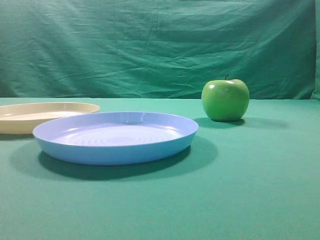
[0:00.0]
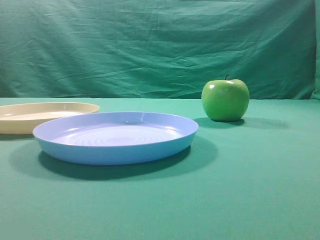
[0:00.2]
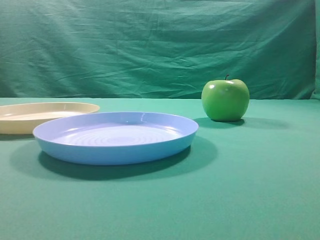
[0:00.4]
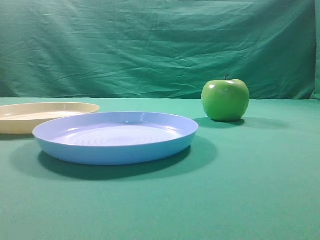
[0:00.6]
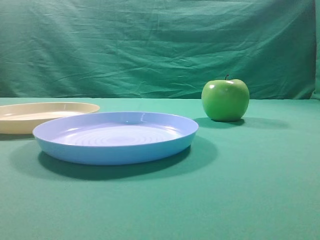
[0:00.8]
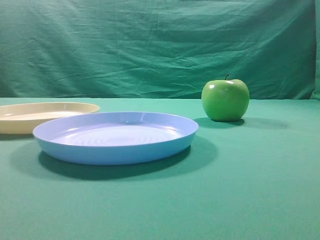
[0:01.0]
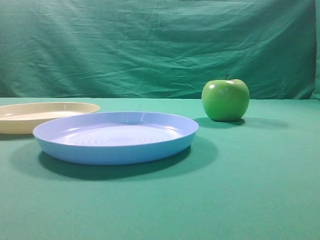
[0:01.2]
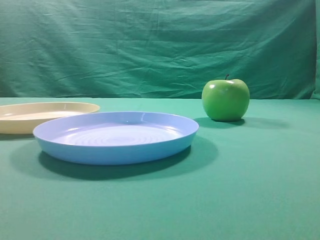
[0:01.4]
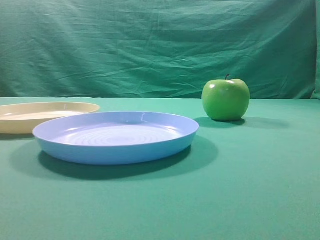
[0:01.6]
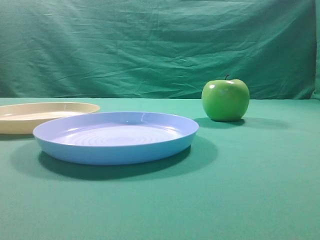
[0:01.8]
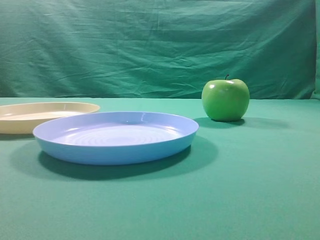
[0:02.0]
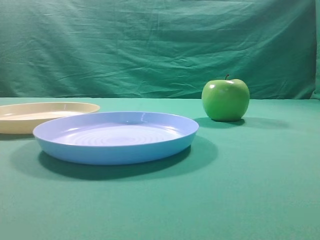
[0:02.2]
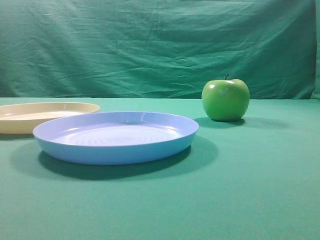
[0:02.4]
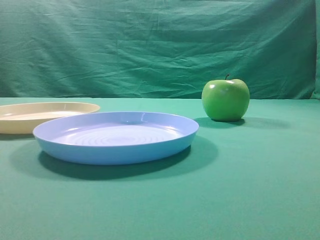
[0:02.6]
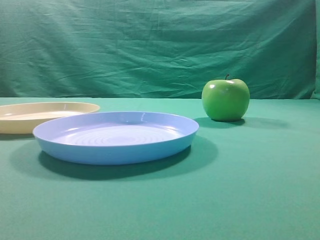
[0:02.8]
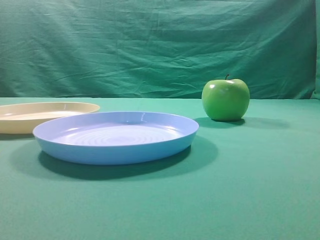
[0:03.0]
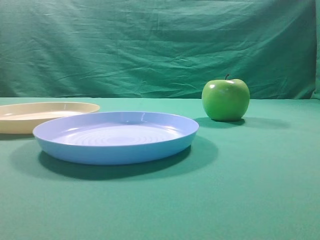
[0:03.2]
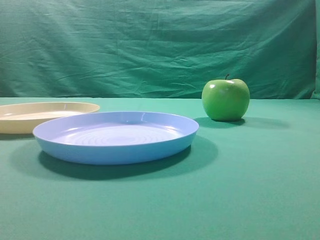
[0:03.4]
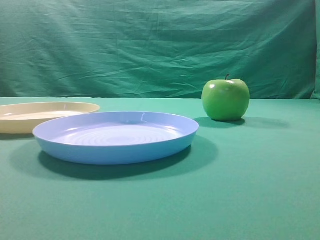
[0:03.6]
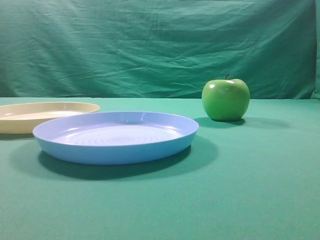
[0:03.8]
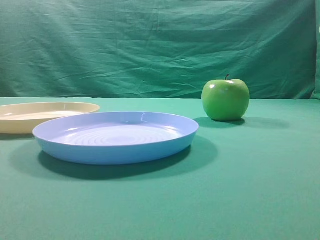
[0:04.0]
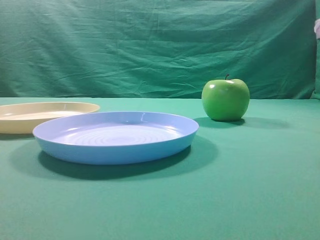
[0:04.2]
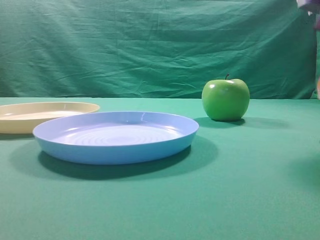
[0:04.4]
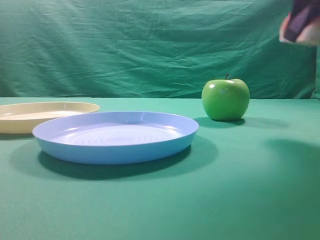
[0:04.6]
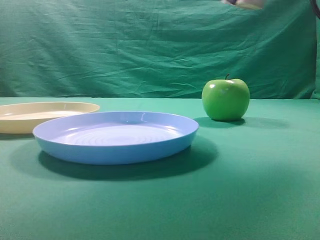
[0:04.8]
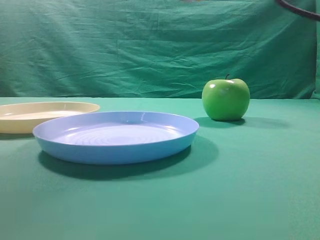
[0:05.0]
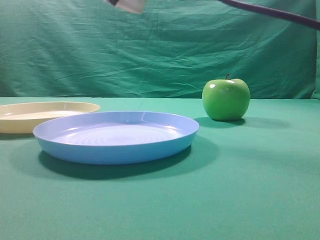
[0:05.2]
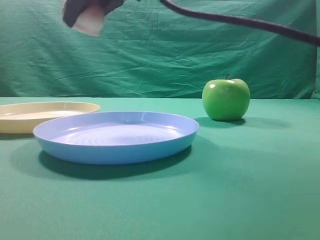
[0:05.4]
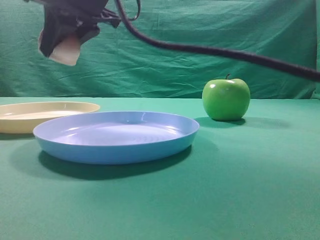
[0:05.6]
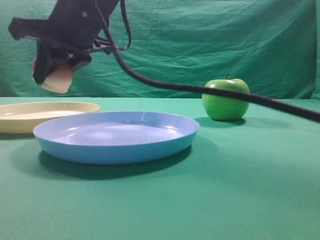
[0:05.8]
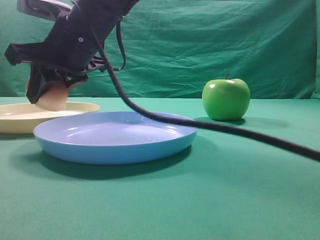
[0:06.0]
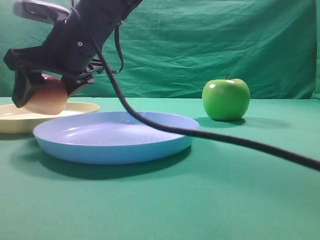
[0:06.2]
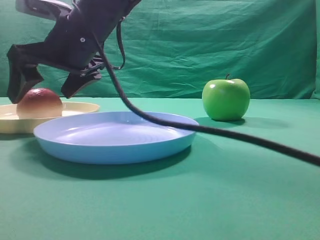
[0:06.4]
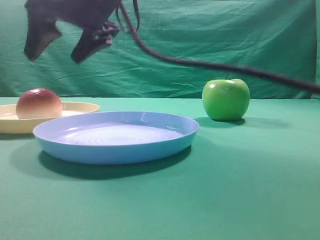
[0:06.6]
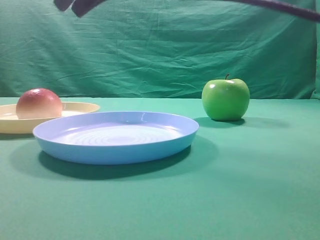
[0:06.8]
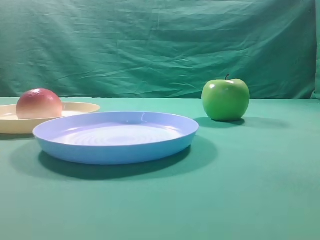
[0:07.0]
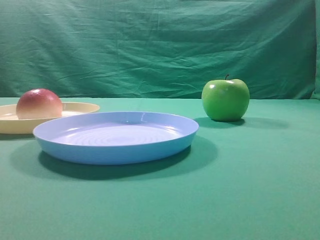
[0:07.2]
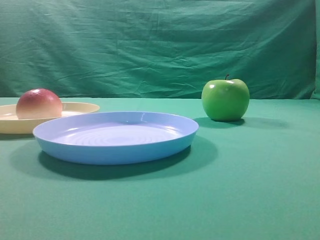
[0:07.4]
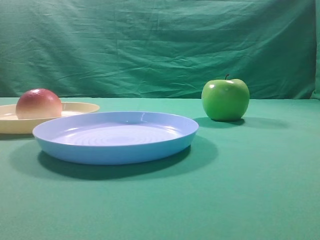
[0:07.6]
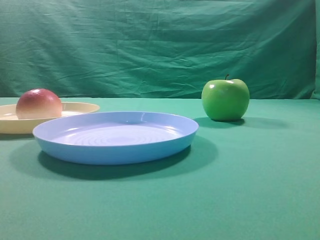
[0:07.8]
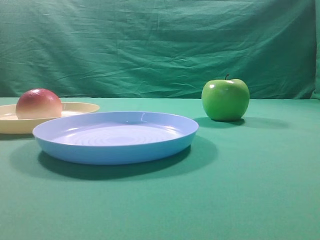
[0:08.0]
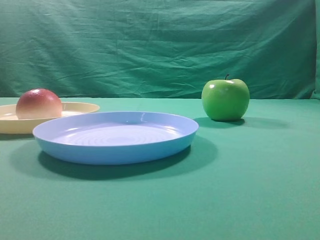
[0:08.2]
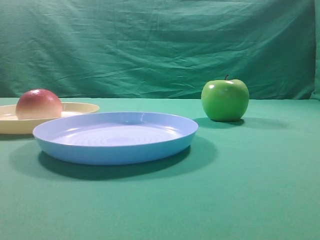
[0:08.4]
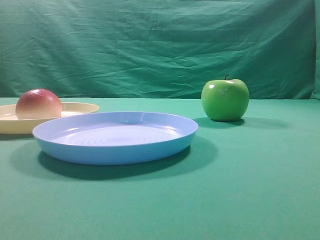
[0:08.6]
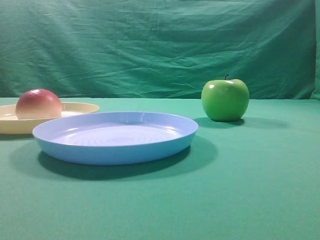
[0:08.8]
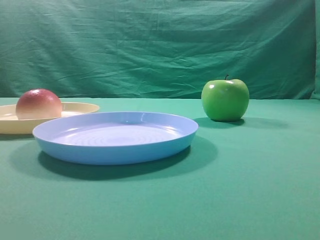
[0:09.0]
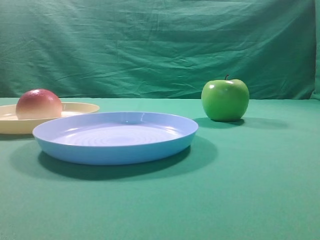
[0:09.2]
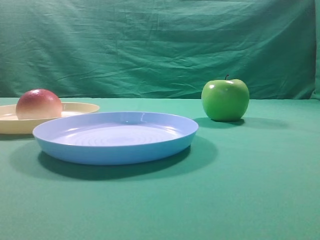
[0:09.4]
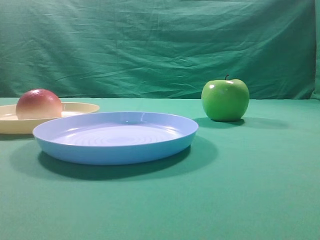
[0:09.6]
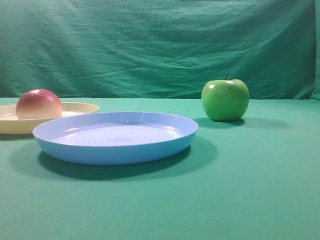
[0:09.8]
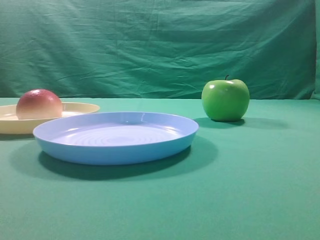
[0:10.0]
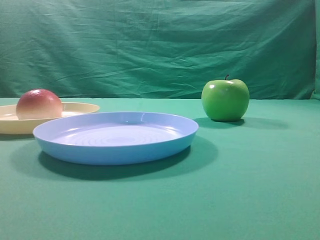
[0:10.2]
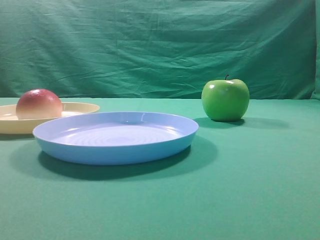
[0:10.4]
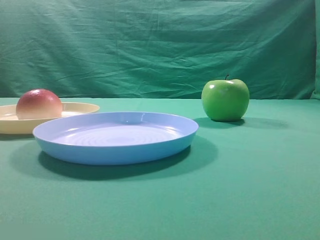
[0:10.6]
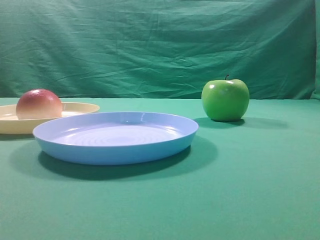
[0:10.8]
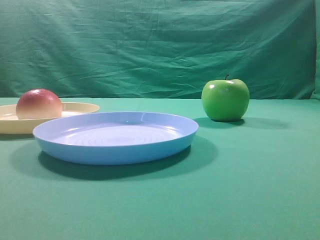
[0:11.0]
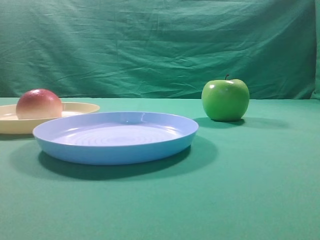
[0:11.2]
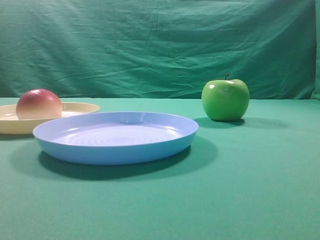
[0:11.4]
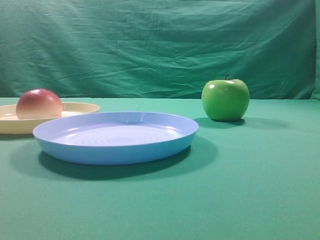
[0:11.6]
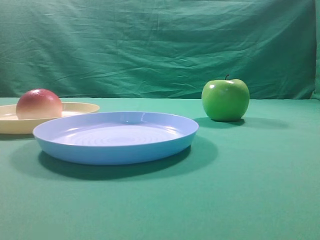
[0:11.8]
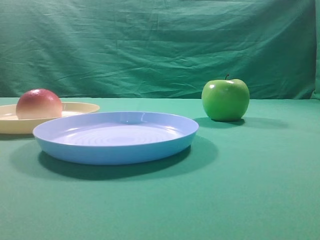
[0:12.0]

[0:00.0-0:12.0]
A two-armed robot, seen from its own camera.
Step, 0:04.6 to 0:06.4: Place the picked object on the yellow plate.
